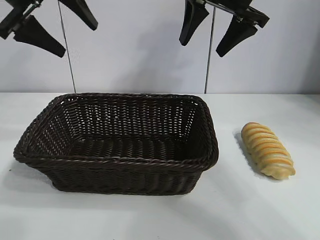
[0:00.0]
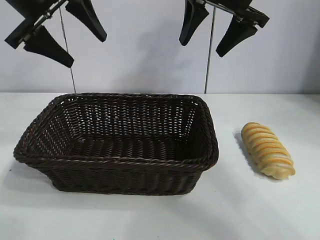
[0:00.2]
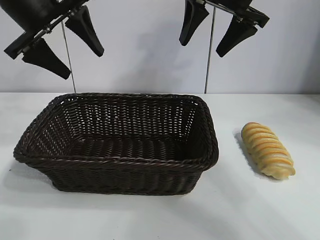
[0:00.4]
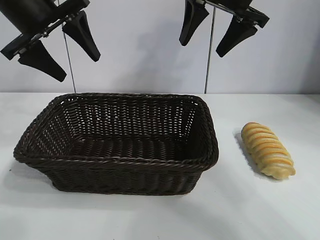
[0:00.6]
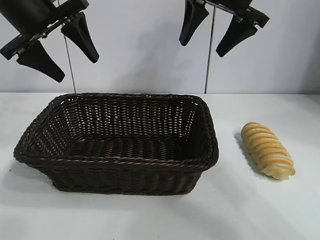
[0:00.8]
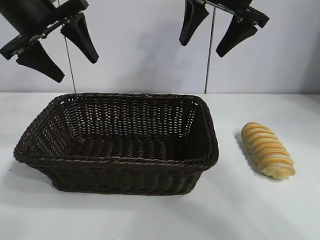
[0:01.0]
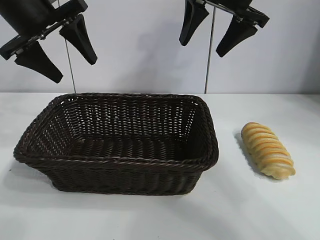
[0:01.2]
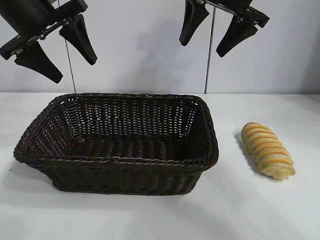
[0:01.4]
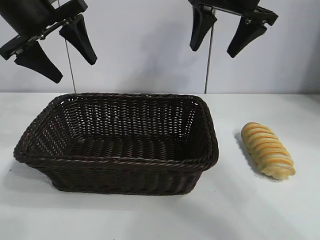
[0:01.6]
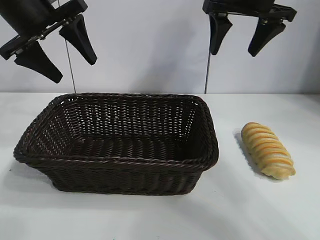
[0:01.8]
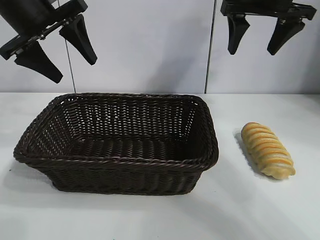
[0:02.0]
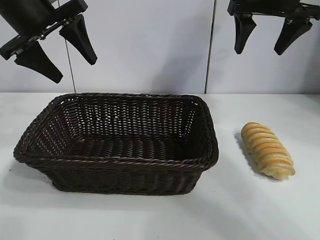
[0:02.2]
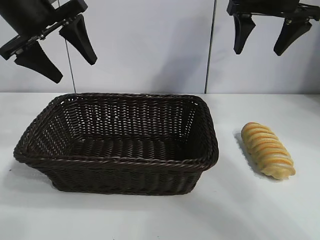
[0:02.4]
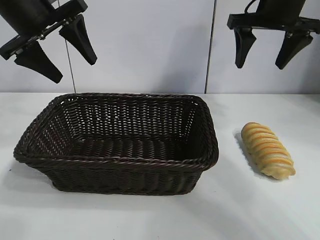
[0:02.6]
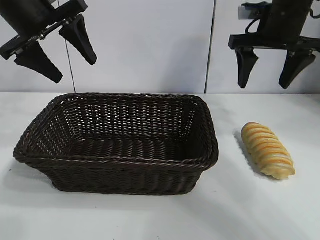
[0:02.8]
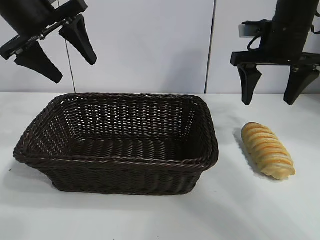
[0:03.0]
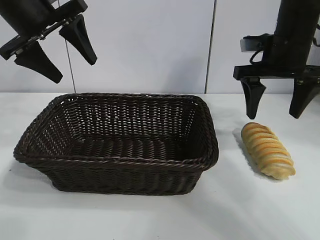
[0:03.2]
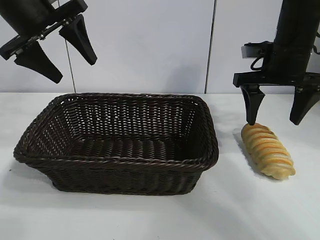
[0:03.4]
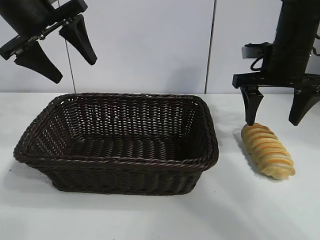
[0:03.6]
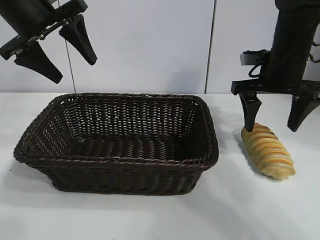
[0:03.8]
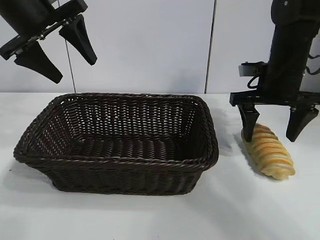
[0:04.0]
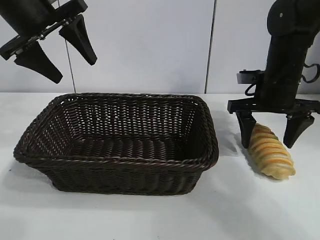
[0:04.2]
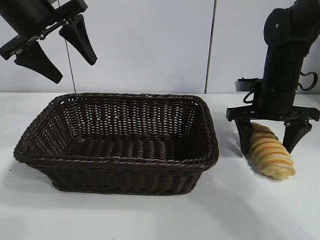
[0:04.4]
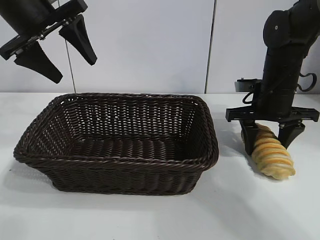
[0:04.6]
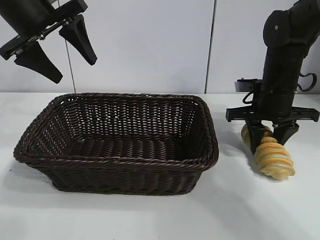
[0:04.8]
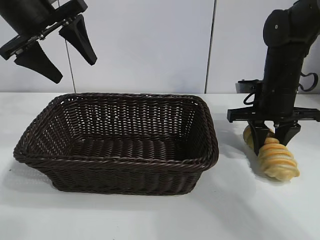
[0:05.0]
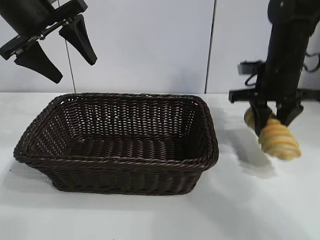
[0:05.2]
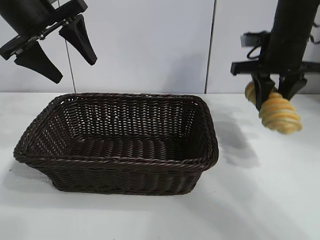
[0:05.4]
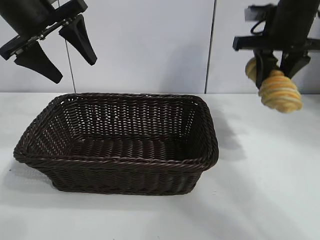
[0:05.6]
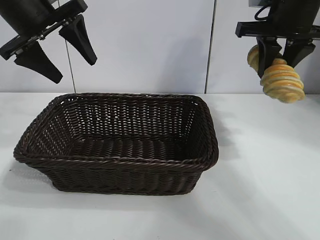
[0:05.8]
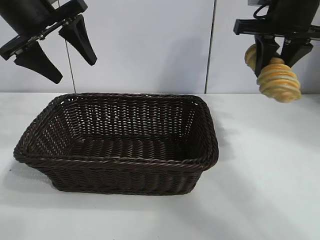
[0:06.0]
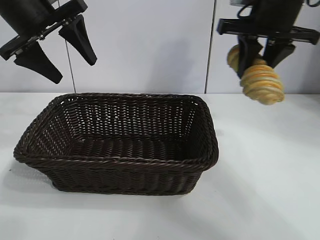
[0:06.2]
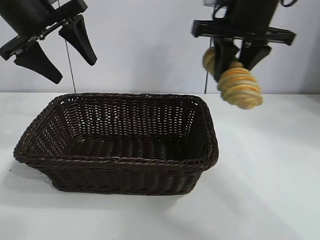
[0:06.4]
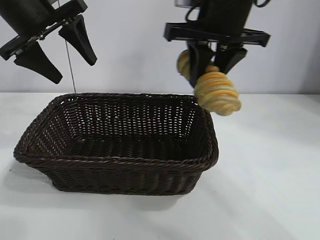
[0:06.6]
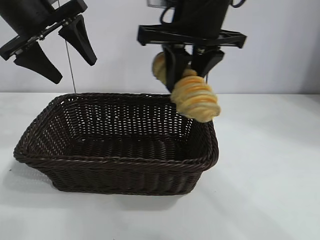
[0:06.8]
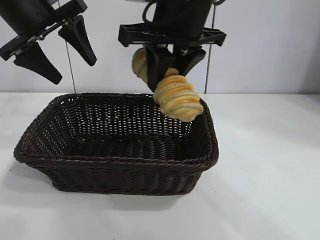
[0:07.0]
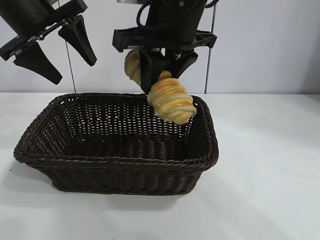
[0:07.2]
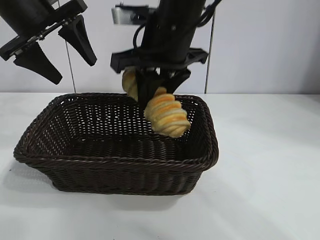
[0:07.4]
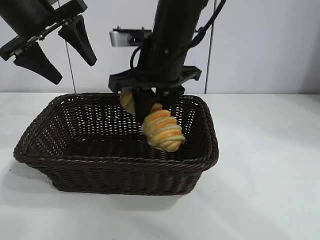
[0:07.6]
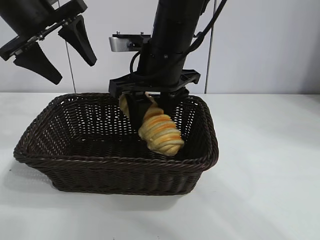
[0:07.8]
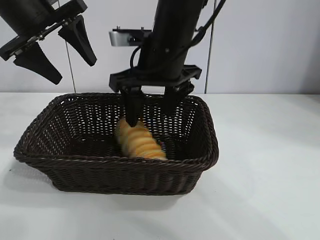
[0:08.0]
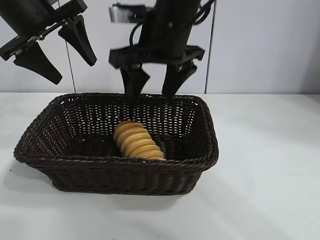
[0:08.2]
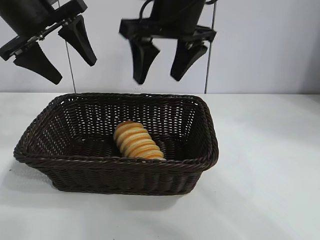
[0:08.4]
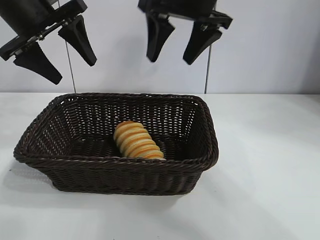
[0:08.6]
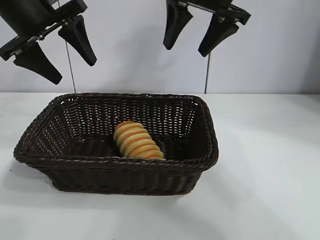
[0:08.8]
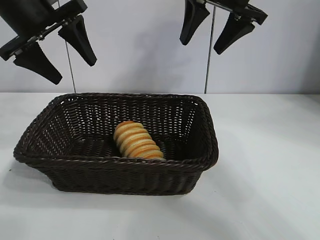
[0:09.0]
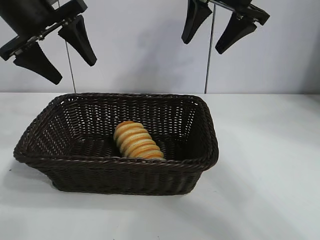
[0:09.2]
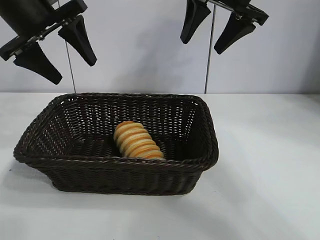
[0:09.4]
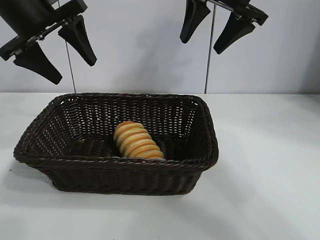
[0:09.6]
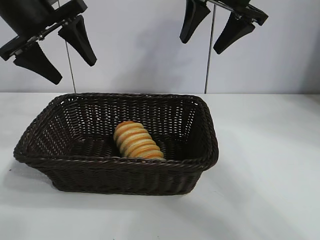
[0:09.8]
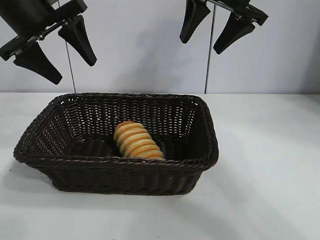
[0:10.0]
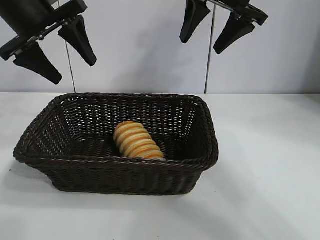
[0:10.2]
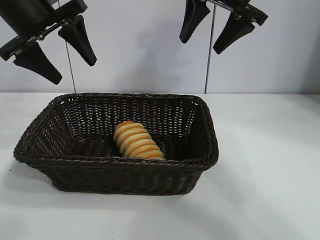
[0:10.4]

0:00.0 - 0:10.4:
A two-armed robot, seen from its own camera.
Task of the whole recording: pick up the long bread and put it into the basket.
Step, 0:00.0 - 0:04.8: Grasp the long bread with right gripper.
Step, 0:05.0 - 0:08.0: Place the long bread in the basket with right gripper.
